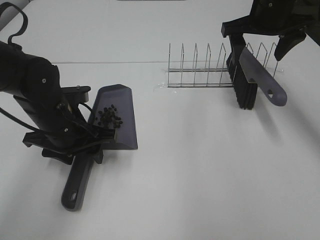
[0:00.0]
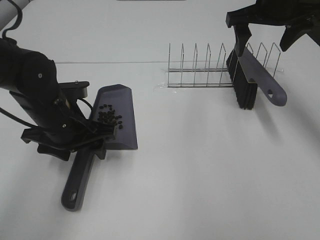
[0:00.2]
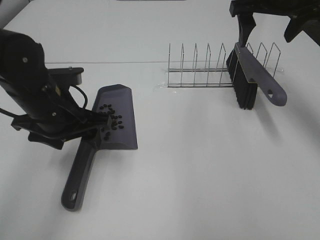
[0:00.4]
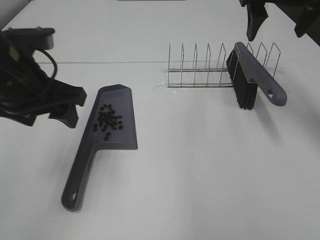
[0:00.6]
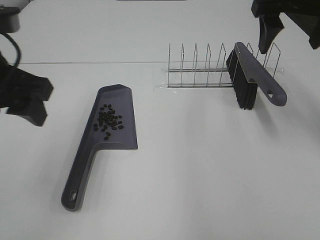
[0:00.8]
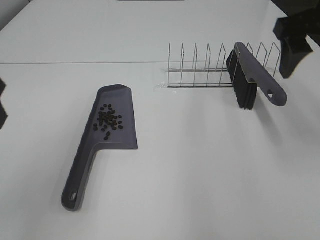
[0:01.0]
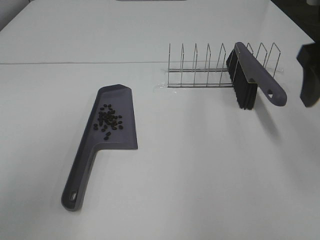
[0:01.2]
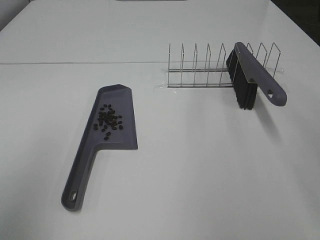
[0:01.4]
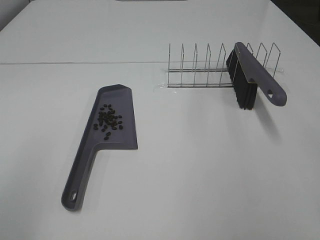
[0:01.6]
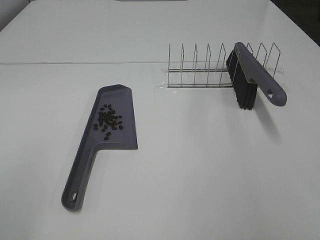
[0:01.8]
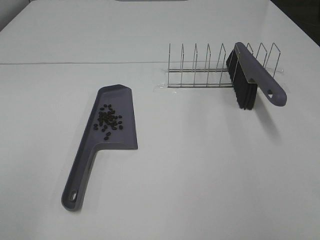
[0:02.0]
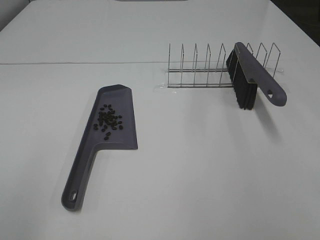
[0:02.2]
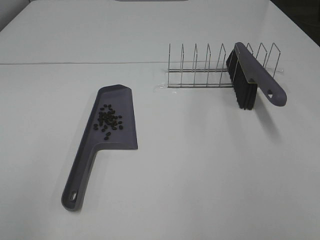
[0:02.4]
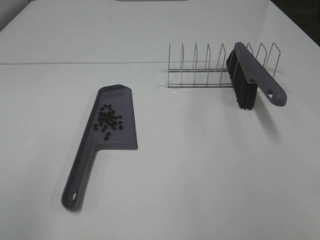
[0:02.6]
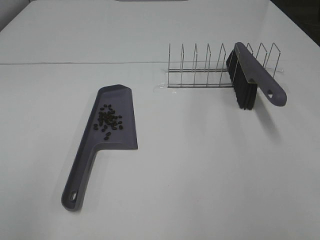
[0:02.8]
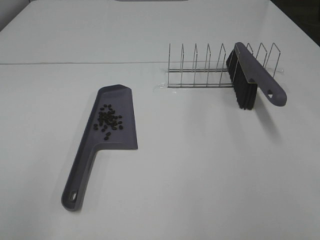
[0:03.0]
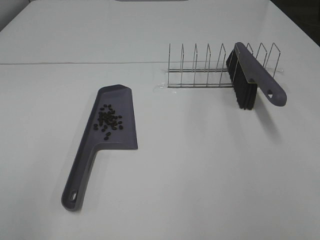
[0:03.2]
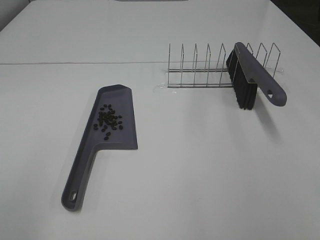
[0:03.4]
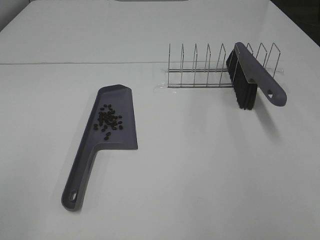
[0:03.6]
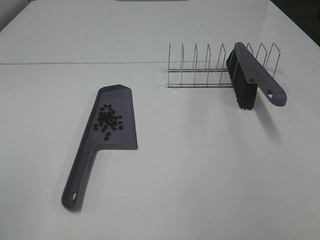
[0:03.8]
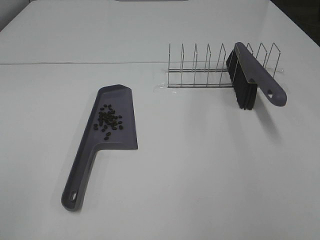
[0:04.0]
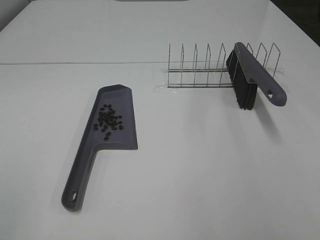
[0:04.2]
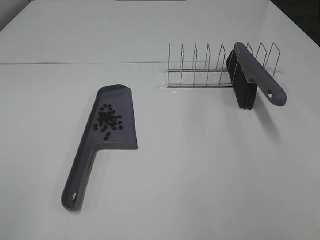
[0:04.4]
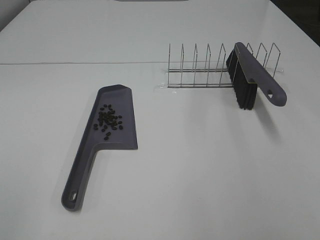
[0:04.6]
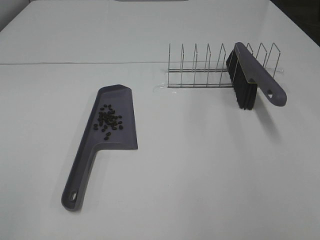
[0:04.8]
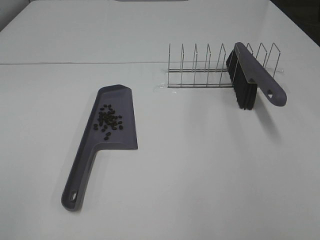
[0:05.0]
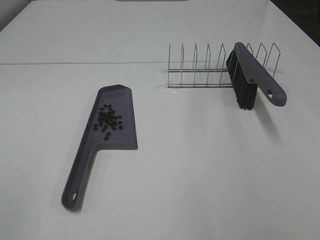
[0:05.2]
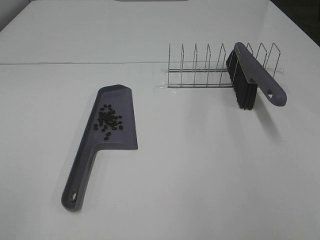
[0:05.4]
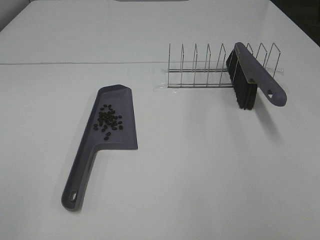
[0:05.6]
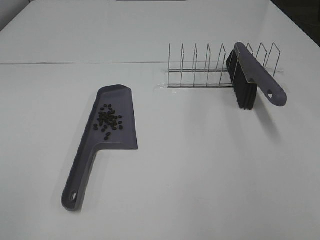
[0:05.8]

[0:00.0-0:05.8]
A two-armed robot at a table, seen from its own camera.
Task of the whole recording: Sweep Coffee Bean.
0:00.0 to 0:01.4: The right gripper heads backward, covering roughly 25 cm. Meanwhile the left gripper is displaced backward, upward and to the left by some 30 cm.
0:04.4 to 0:05.8: Both grippers stay about where they are.
